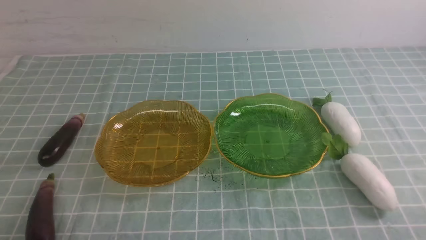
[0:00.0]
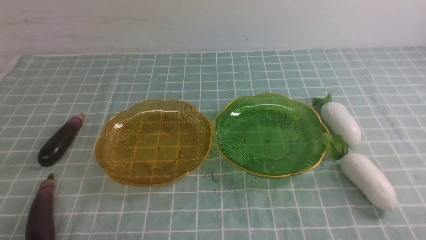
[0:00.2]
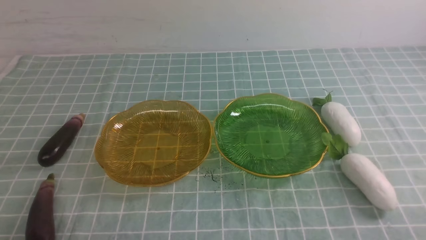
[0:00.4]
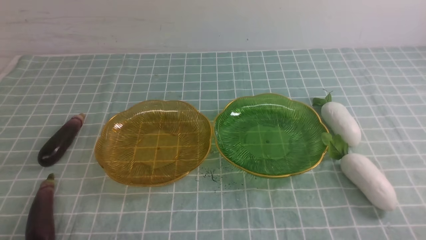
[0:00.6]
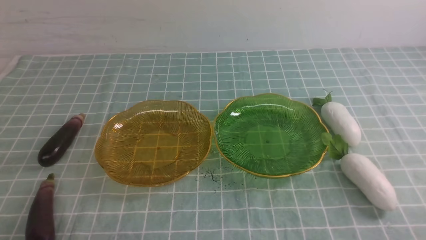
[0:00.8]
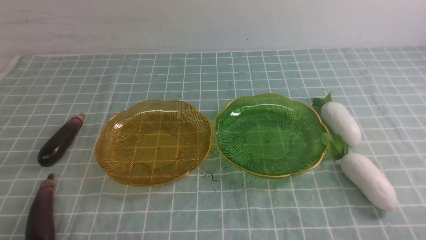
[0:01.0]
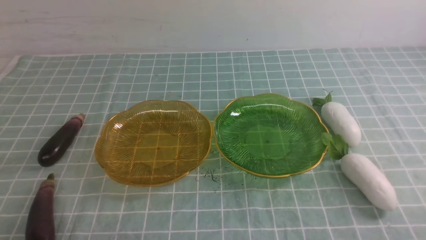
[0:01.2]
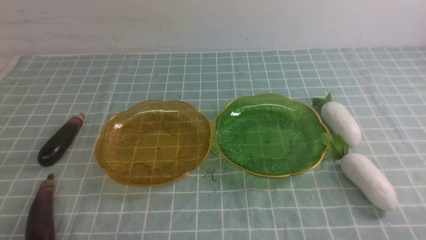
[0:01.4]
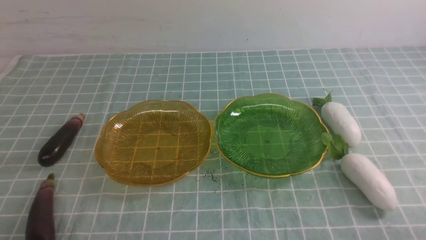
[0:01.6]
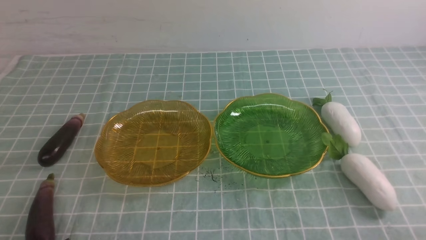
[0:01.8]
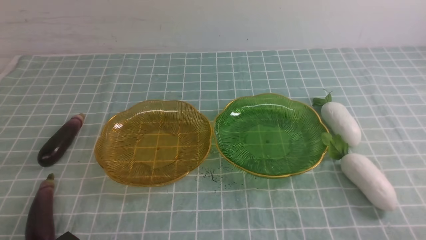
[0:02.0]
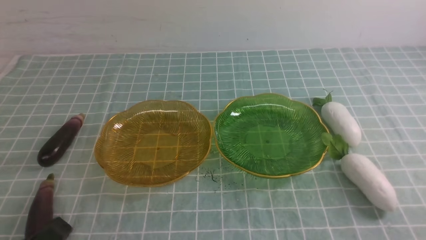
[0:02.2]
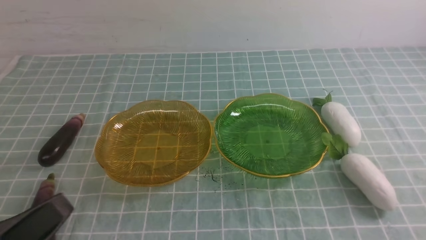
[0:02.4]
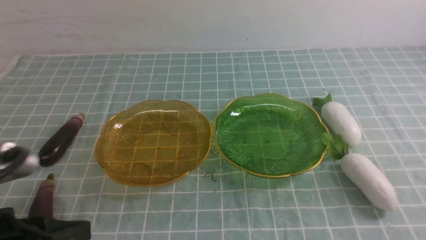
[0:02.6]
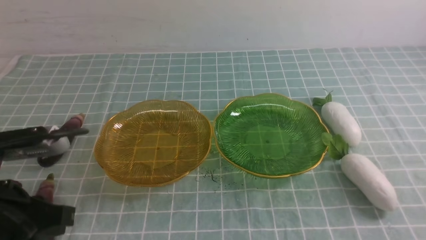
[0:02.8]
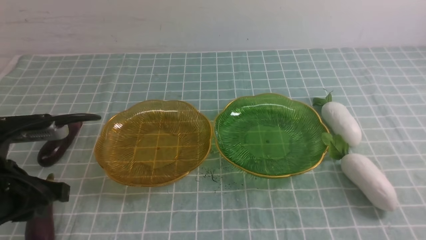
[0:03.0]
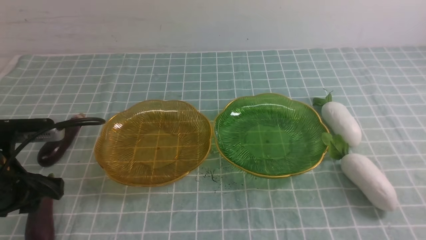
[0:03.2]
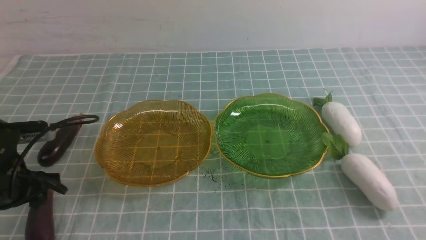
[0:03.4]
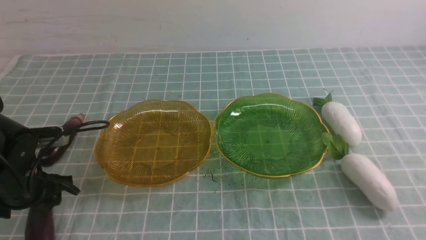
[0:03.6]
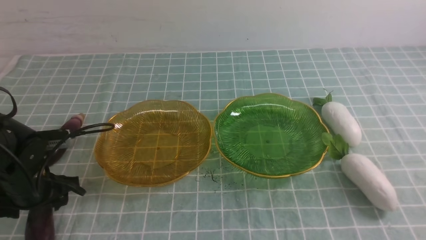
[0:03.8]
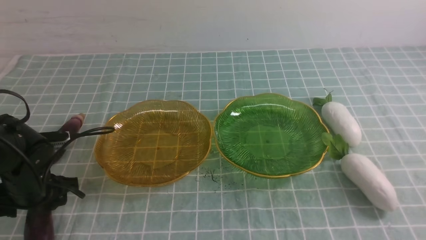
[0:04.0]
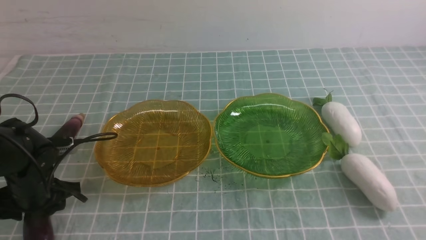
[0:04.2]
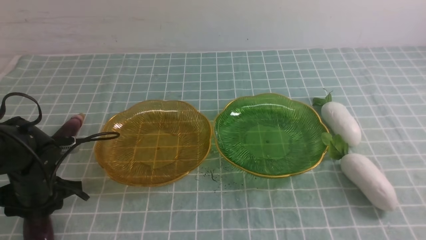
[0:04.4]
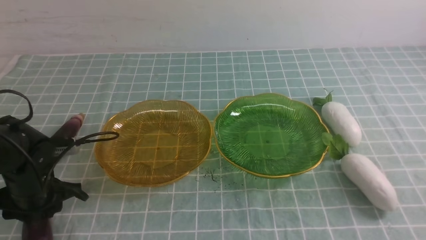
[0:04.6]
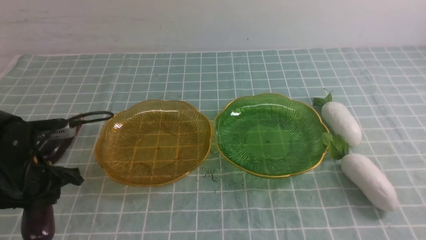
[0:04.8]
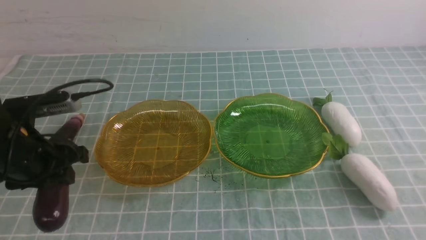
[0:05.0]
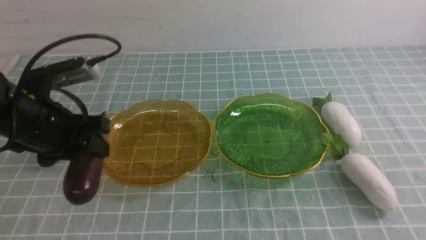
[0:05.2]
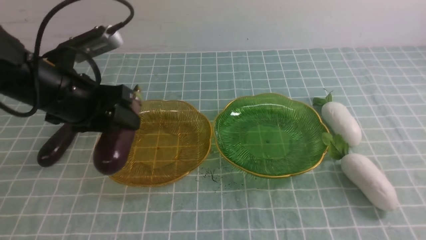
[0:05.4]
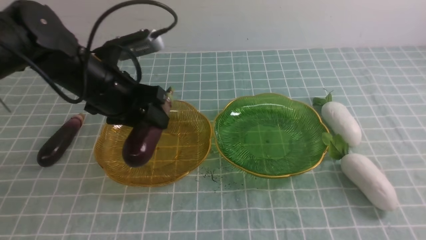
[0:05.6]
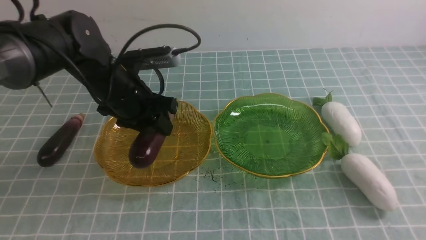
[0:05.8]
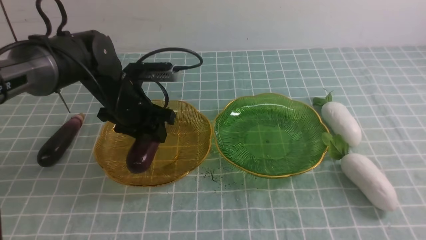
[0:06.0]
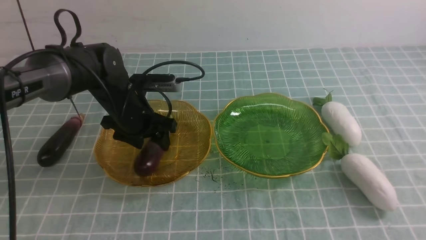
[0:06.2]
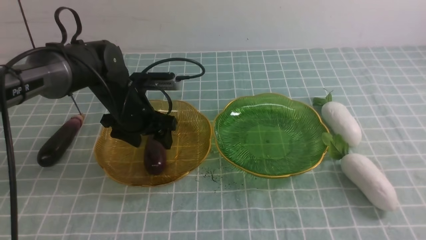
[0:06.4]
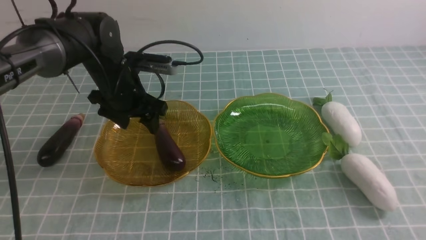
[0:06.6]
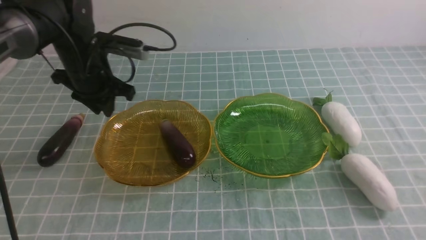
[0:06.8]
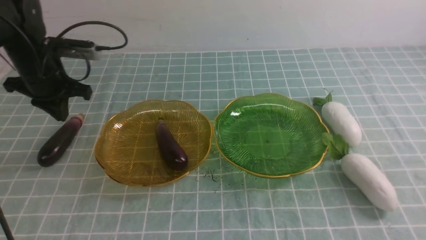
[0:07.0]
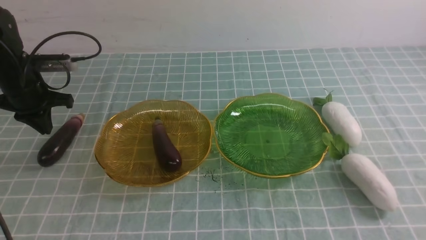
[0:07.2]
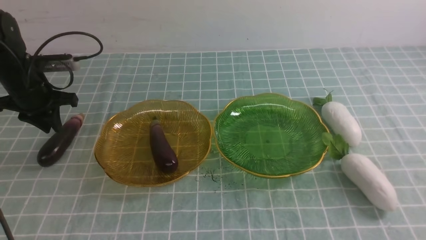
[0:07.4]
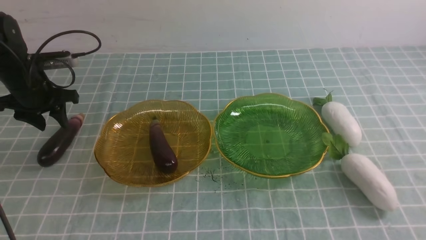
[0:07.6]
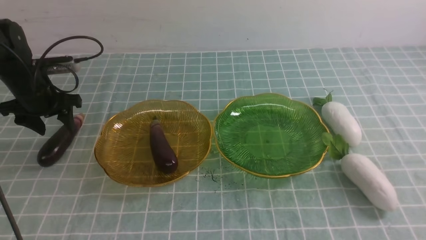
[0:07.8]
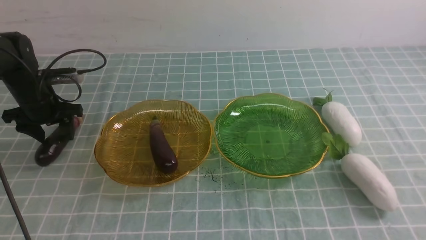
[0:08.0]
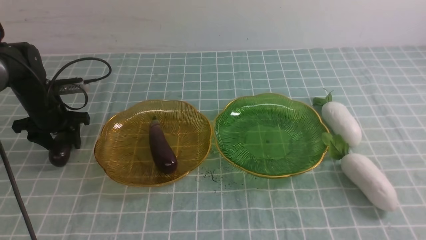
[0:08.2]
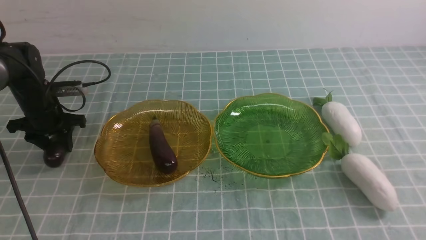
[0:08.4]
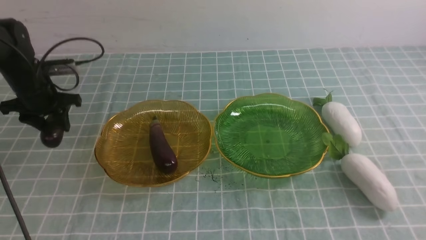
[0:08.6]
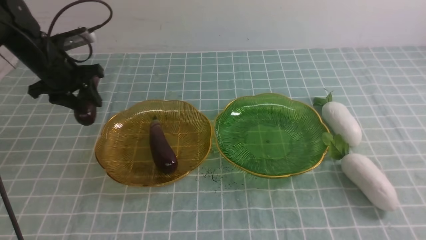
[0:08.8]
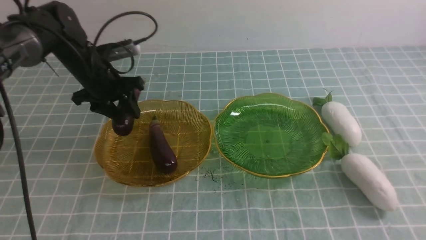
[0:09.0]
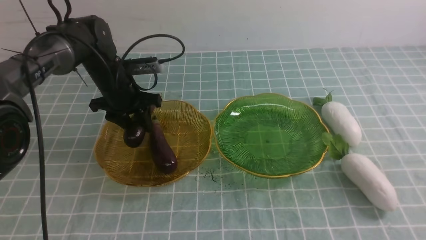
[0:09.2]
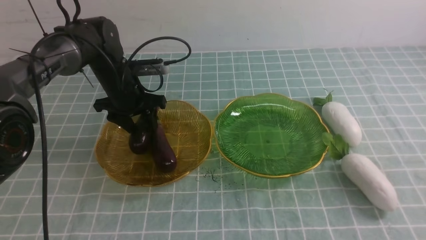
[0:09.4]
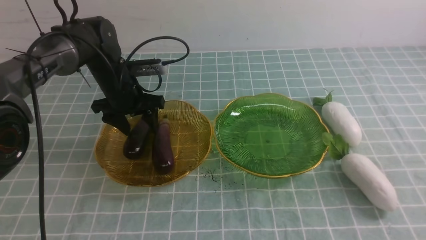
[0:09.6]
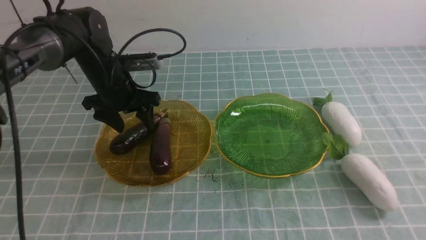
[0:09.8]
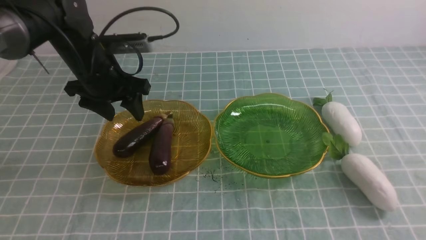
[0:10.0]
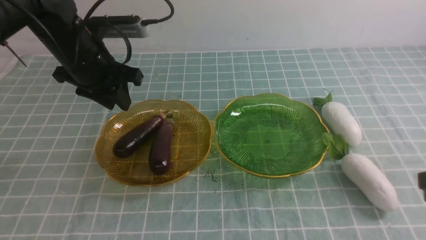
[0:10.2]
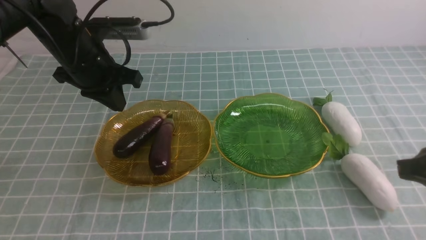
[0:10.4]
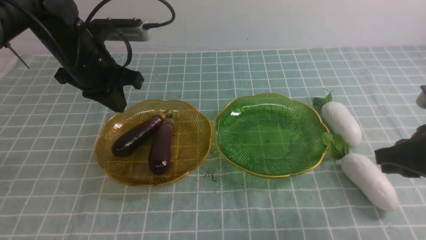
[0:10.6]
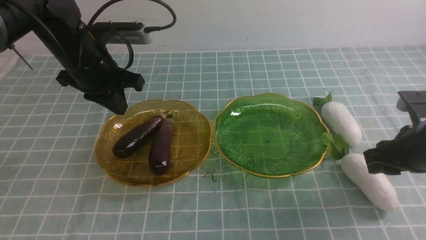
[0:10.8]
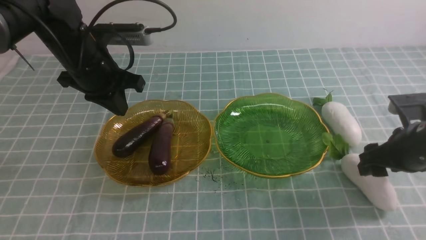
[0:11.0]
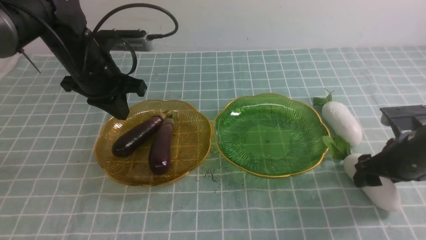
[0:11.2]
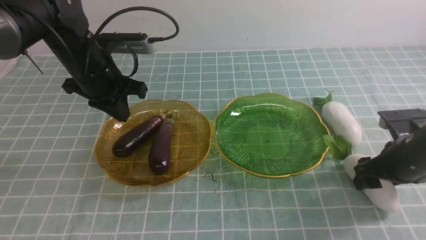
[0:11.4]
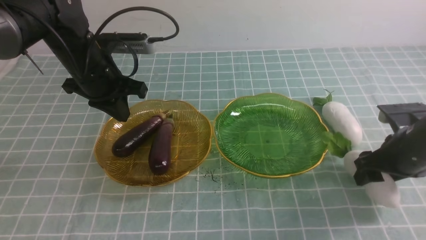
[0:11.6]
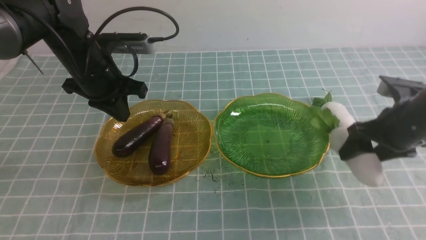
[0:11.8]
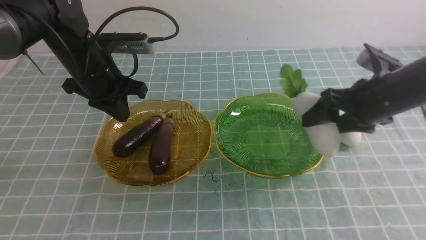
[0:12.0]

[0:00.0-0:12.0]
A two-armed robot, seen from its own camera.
Step, 0:00.0 to 0:09.6: use the left arm to grab an eggplant and put it into the left plate.
0:01.6 to 0:03.0: The left gripper moves forward and upward, about 15 cm.
0:03.0 to 0:04.4: The left gripper shifts roughly 15 cm downward and forward, and opens its fingers.
0:04.4 to 0:06.0: The left gripper goes some 20 cm to the right, forward and upward.
0:06.0 to 0:07.6: The left gripper moves to the left, about 20 cm, and closes, then opens again.
0:07.6 to 0:09.0: The left gripper moves to the right, some 10 cm.
0:09.0 to 0:10.4: The right gripper heads forward, covering approximately 10 cm. Meanwhile the left gripper heads upward and backward, covering some 10 cm, and closes its fingers.
0:10.4 to 0:12.0: The right gripper is displaced forward by roughly 15 cm, and opens.

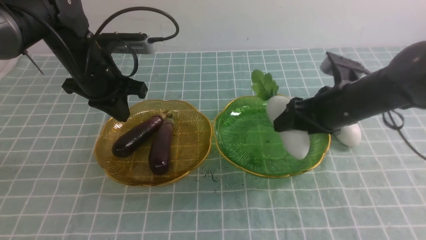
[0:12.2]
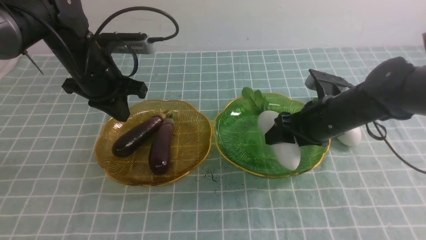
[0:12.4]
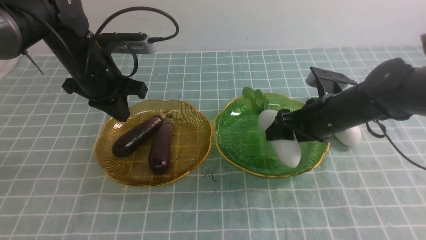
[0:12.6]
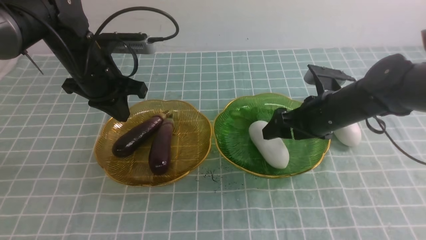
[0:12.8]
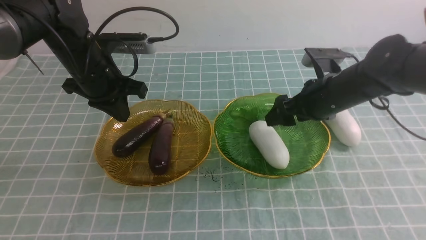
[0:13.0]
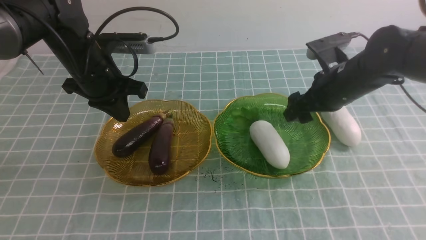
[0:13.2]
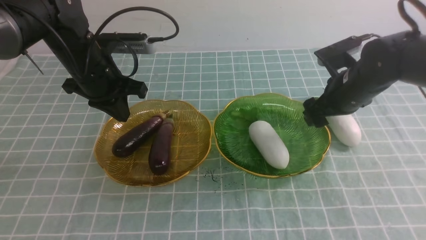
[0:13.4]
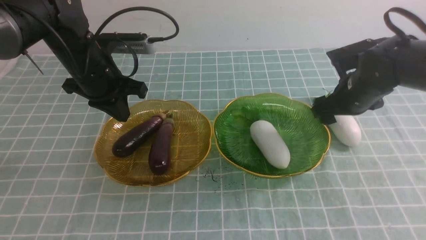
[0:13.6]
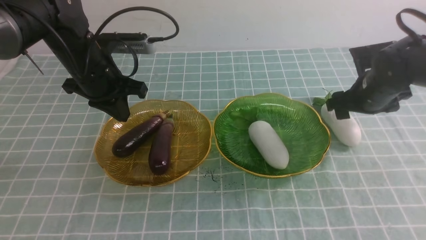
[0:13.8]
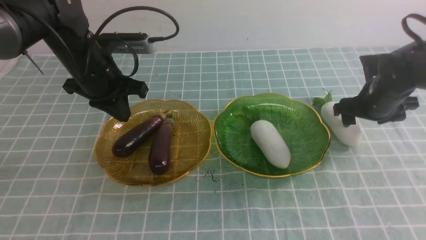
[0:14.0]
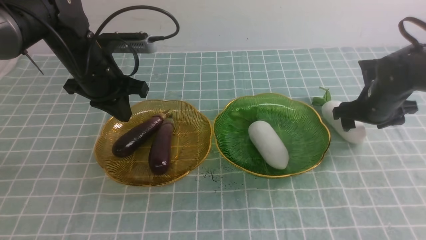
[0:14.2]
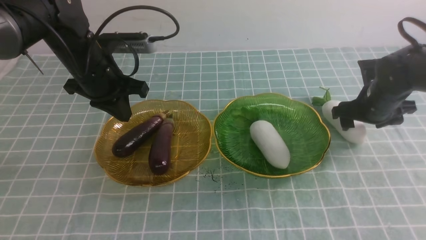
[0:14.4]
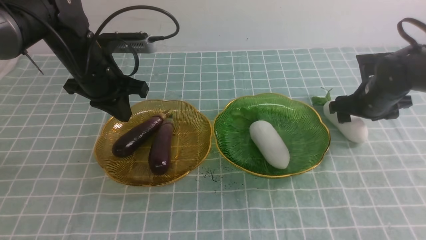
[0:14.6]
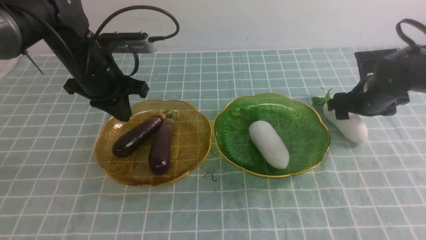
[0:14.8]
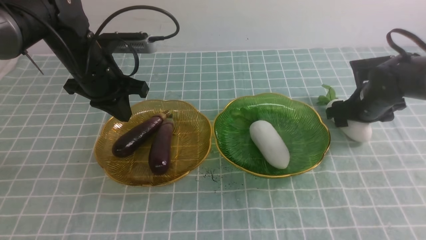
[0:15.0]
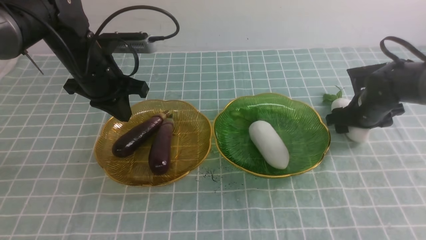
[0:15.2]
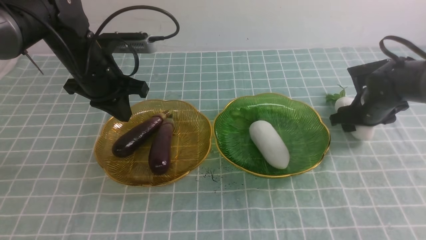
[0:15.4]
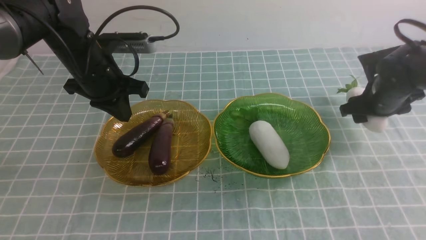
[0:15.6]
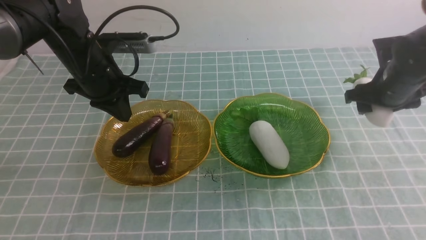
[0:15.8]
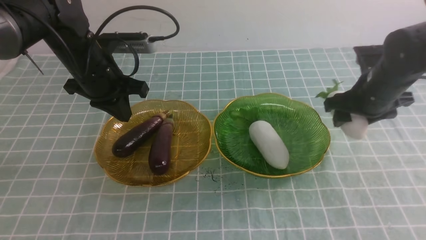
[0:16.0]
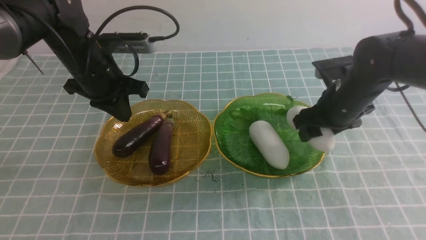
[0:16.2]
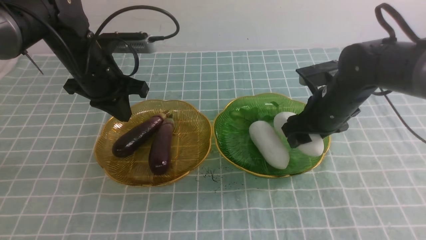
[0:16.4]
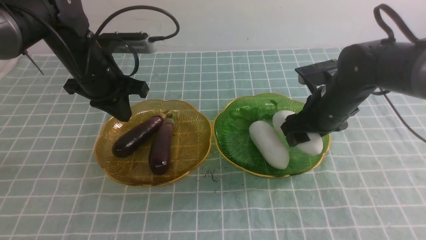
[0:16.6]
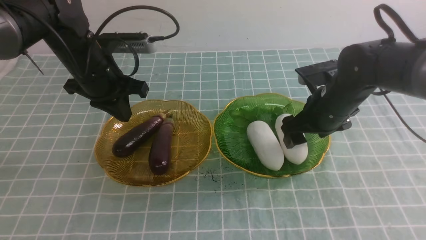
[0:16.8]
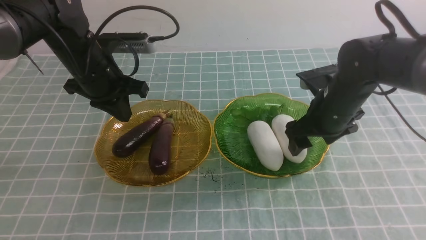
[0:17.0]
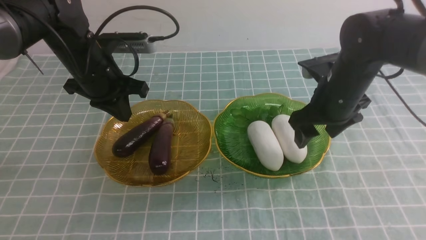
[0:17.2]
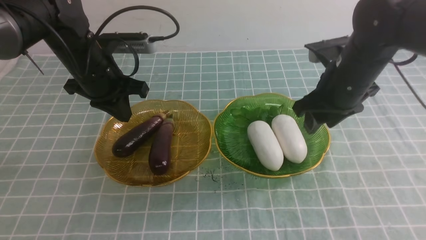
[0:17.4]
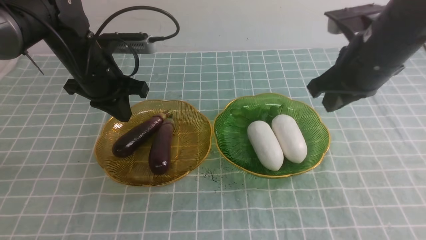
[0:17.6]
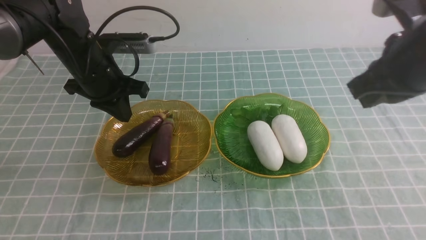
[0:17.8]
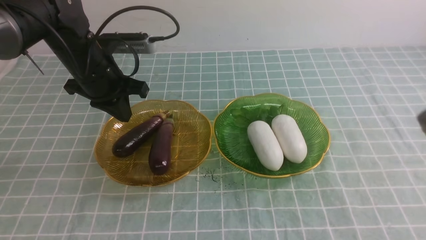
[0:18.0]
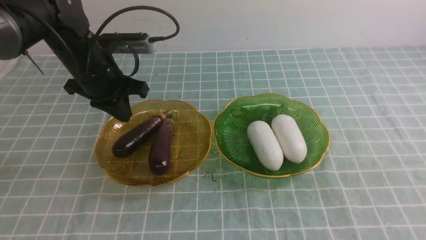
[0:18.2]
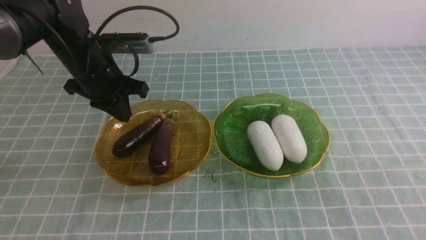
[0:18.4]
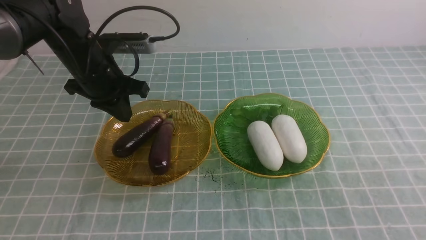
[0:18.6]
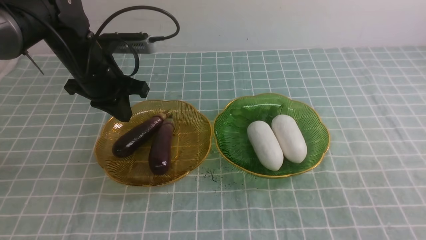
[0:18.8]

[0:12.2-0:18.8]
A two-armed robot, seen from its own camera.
Step, 0:12.2 to 0:16.6: use the right arm to grab a radish and put it into the right plate.
0:12.2 to 0:13.8: The right gripper travels forward by roughly 5 cm.
0:13.8 to 0:15.4: The right gripper changes place by about 5 cm.
0:15.4 to 0:17.2: The right gripper is displaced to the left, upward and backward by approximately 15 cm.
0:17.2 to 0:18.8: The right gripper moves backward, some 30 cm, and closes.
